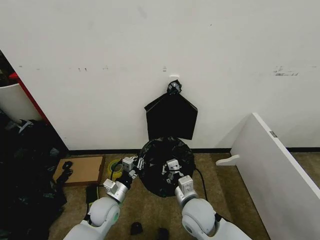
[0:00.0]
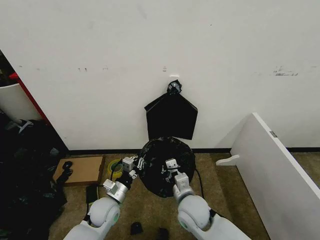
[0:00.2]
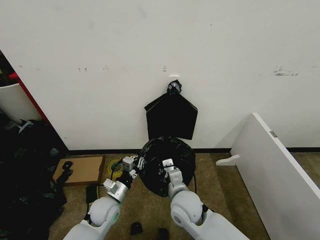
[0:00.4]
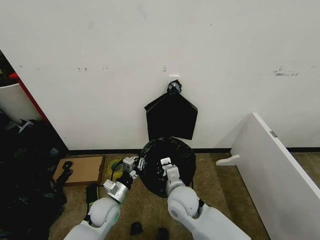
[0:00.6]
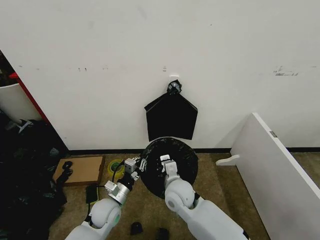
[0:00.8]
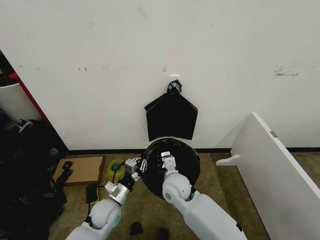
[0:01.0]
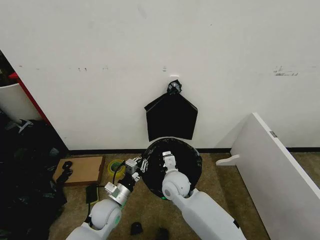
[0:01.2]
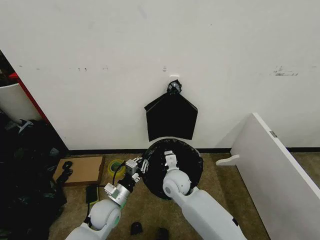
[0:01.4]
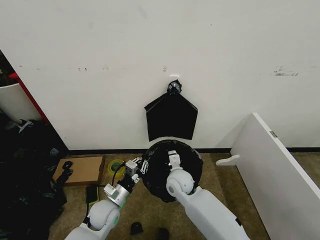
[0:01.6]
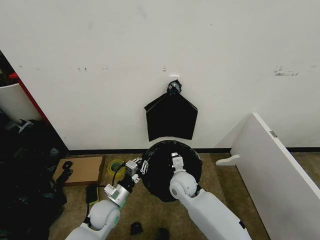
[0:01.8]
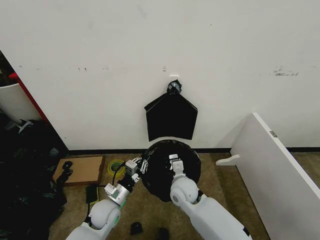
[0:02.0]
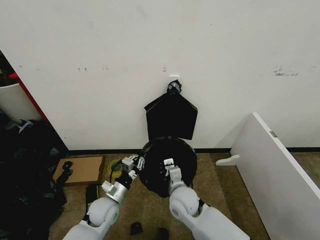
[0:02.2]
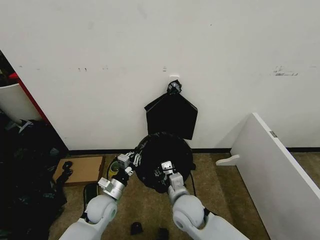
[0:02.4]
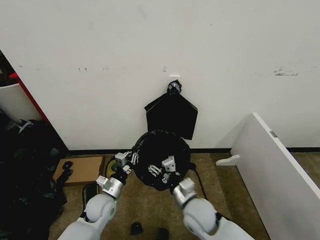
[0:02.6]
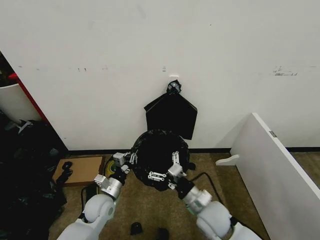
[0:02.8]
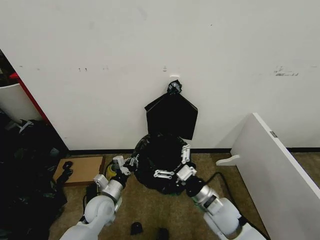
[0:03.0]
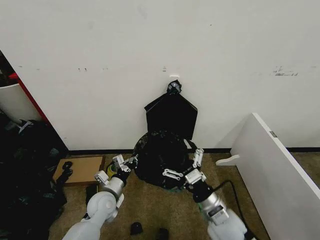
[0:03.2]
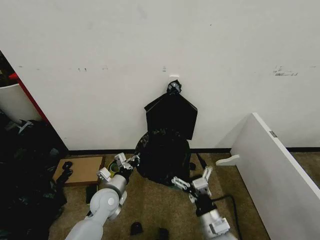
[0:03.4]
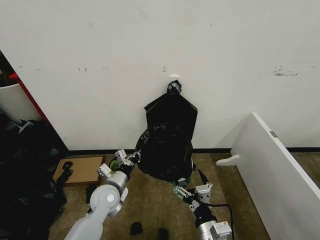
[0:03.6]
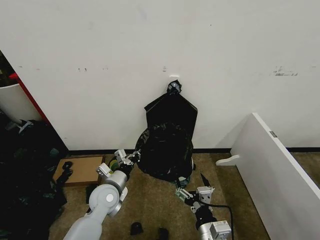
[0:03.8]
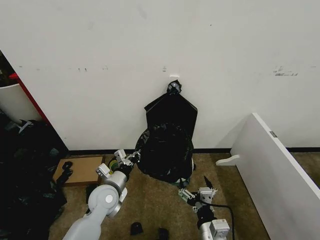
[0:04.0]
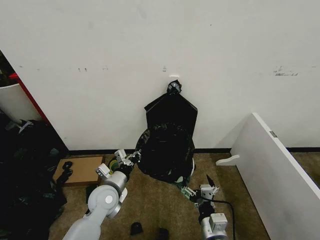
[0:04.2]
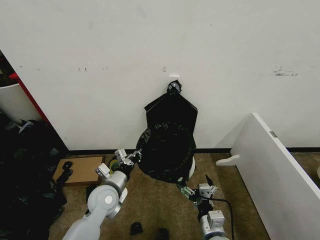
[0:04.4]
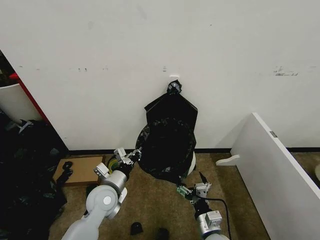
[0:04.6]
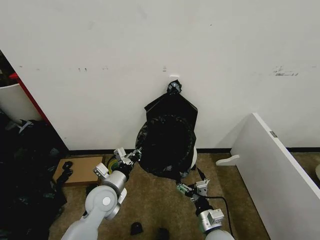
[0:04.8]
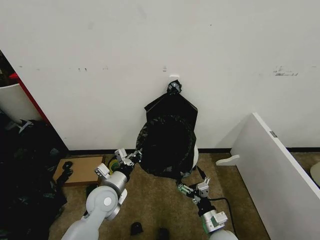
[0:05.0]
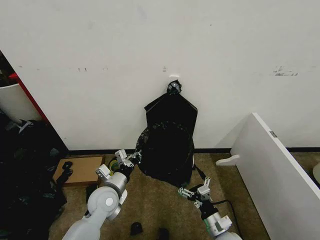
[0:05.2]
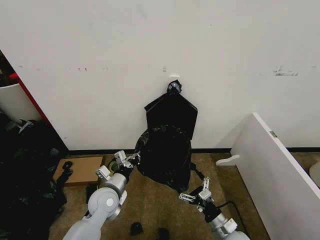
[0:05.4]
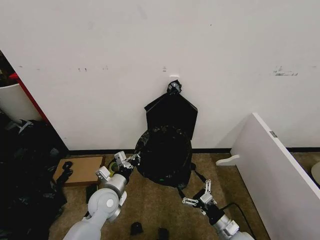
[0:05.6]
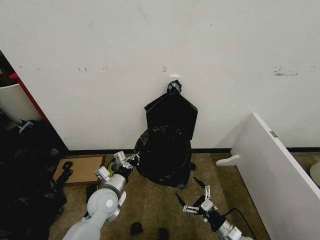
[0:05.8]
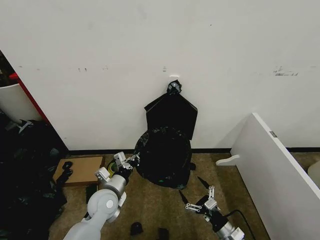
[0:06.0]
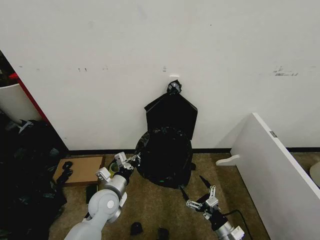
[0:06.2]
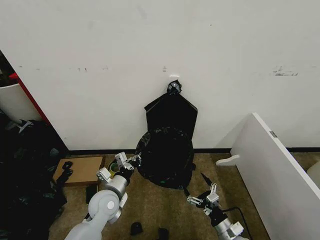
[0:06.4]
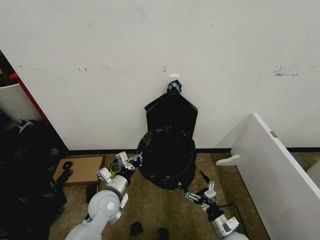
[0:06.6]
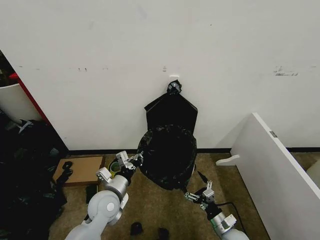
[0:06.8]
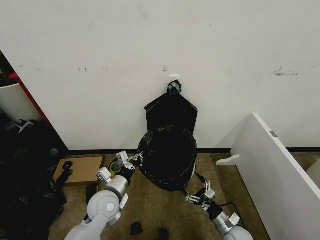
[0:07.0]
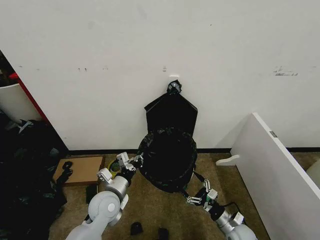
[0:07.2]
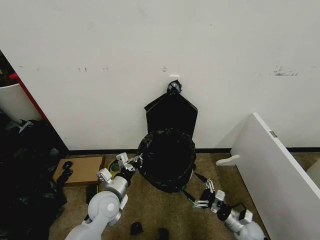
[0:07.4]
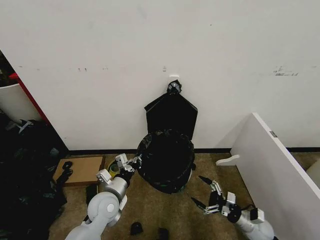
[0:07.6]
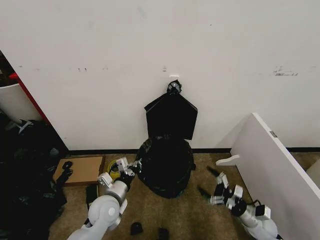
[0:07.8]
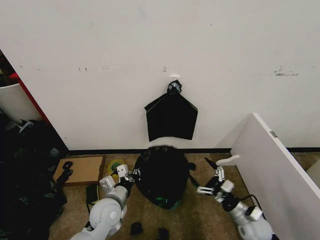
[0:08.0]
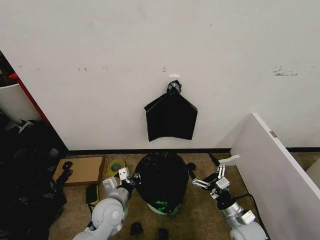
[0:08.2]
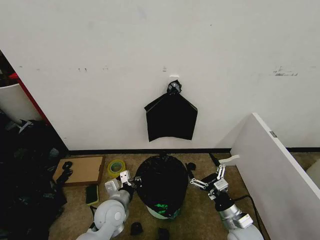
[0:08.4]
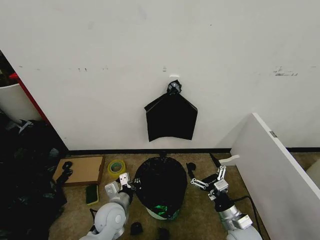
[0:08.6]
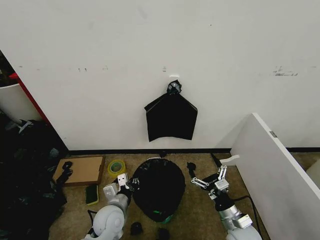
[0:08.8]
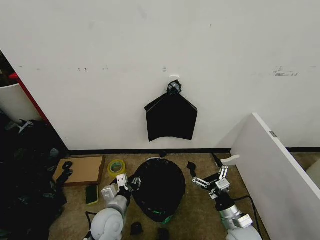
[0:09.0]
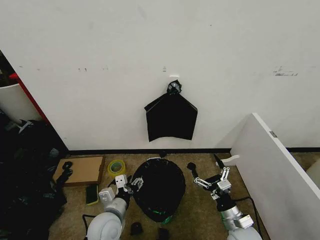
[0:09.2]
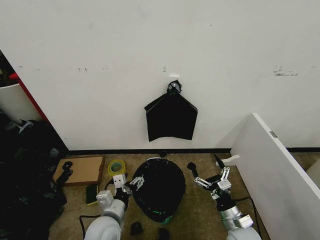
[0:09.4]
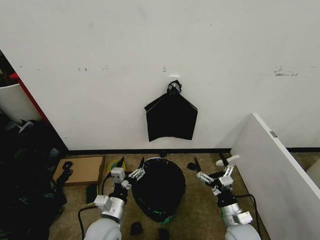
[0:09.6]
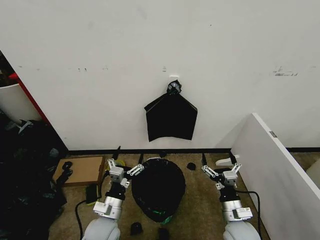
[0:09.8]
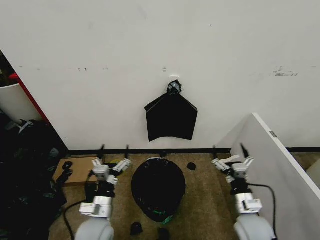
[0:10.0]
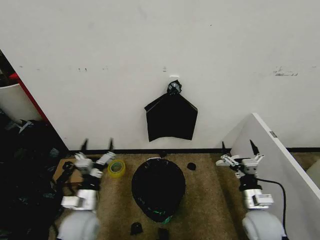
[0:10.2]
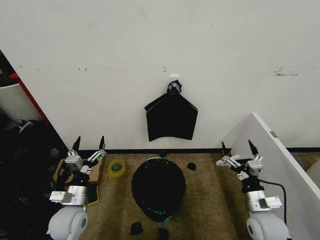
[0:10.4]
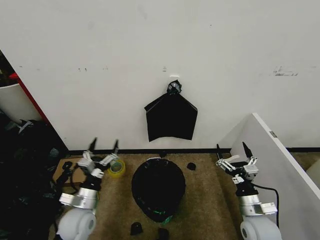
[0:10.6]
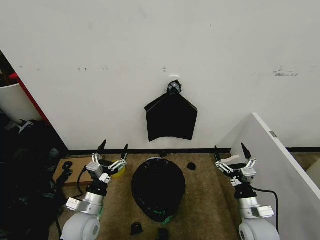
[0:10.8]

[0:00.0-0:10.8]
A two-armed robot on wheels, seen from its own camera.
Task of the whole recording: Place the garbage bag over the trash bin.
0:00.0 to 0:01.6: The right gripper is displaced forward by roughly 10 cm.
0:01.6 to 0:03.0: The right gripper moves backward and to the right, approximately 15 cm, and opens its fingers.
0:03.0 to 0:04.6: The left gripper is displaced upward by approximately 5 cm. The right gripper shifts roughly 10 cm backward and downward.
0:04.6 to 0:06.2: The right gripper shifts some 10 cm to the right and downward.
0:06.2 to 0:07.8: The right gripper goes approximately 15 cm to the right and forward.
0:07.8 to 0:09.2: The left gripper is displaced backward by some 5 cm, and opens its fingers; the right gripper moves to the left, upward and backward, some 15 cm.
0:09.2 to 0:10.8: The left gripper moves to the left, about 5 cm, and opens its fingers.
